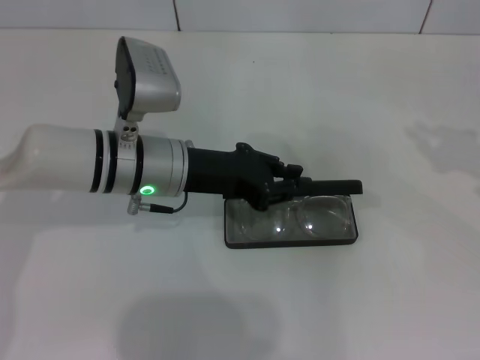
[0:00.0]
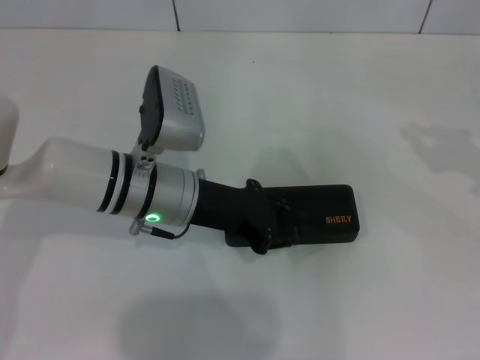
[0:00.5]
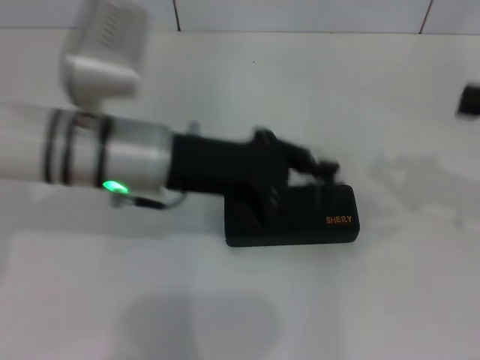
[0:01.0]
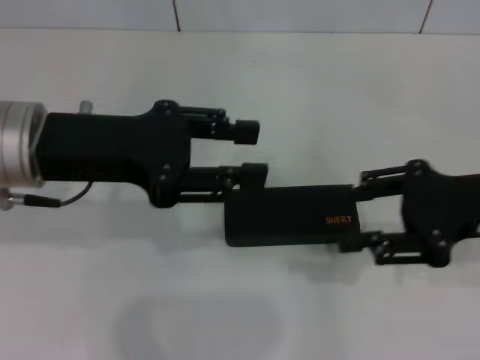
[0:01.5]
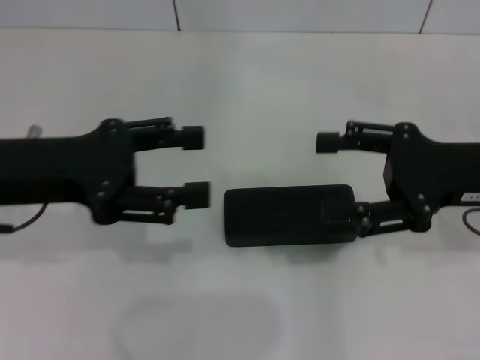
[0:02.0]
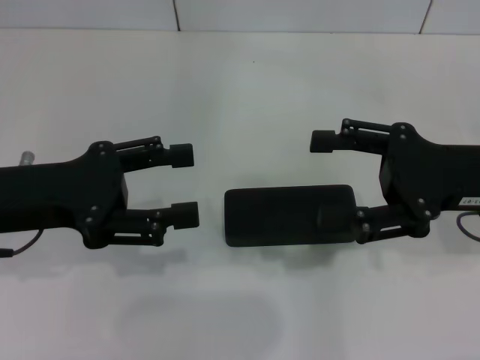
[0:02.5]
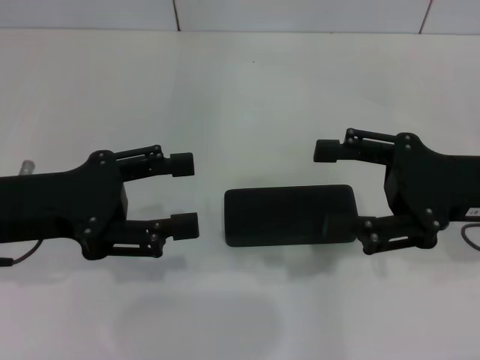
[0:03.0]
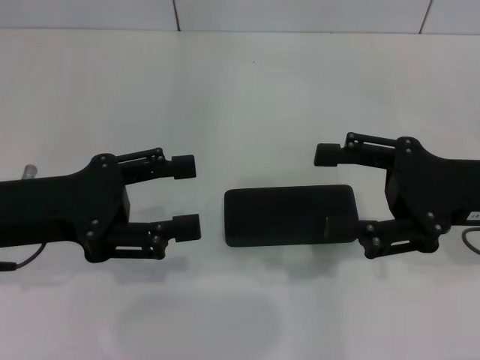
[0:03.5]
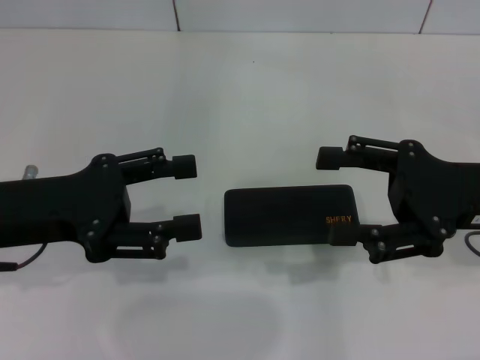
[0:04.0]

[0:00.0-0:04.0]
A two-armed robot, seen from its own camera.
0:00.0 to 0:02.0: The right gripper goes approximately 15 cm to the left, and opens up. The left gripper heads to the left, upward and backward, covering approximately 15 cm, and opens up.
0:02.0 to 0:04.0: The grippers move only a little.

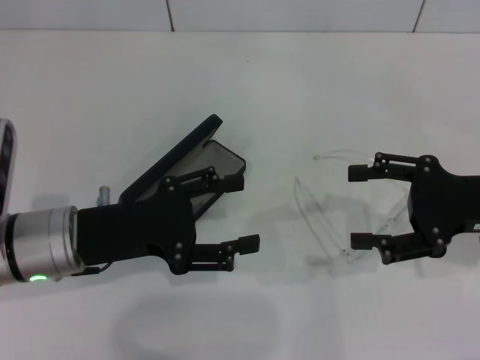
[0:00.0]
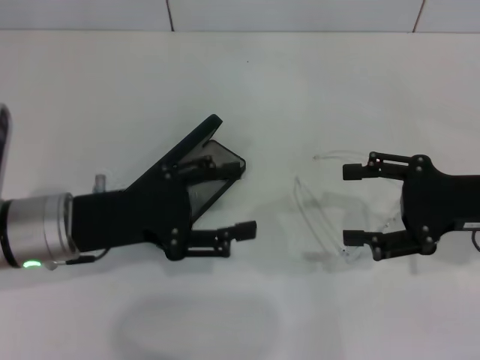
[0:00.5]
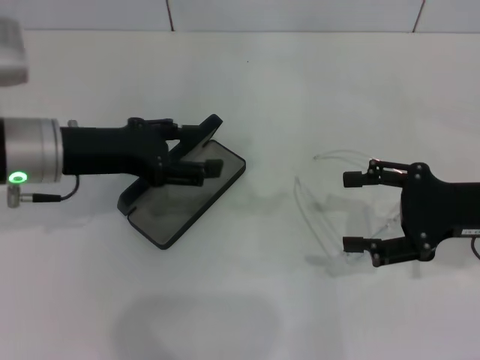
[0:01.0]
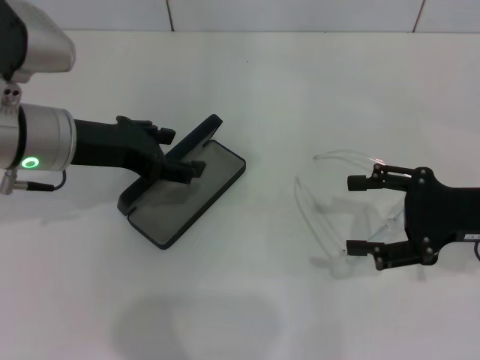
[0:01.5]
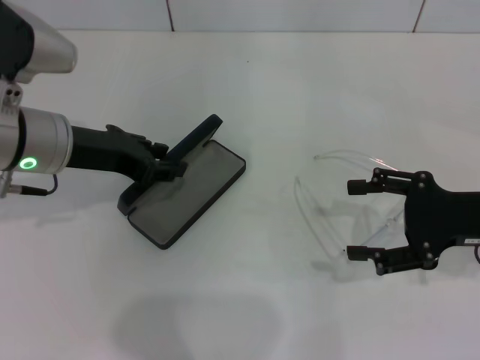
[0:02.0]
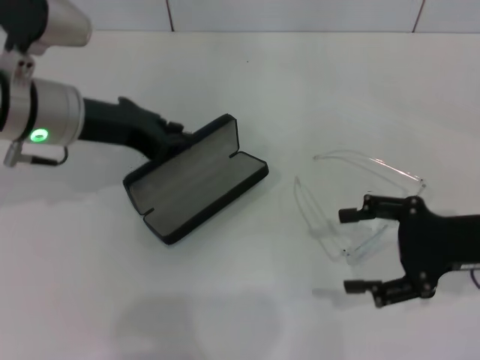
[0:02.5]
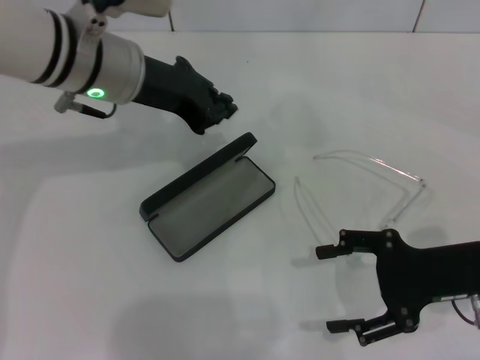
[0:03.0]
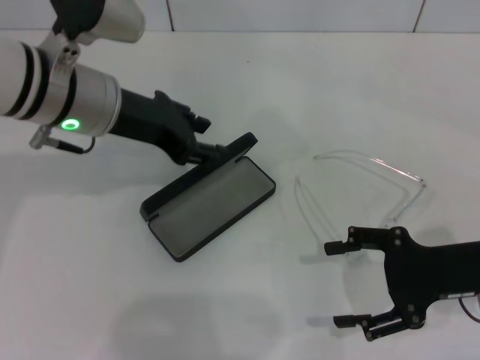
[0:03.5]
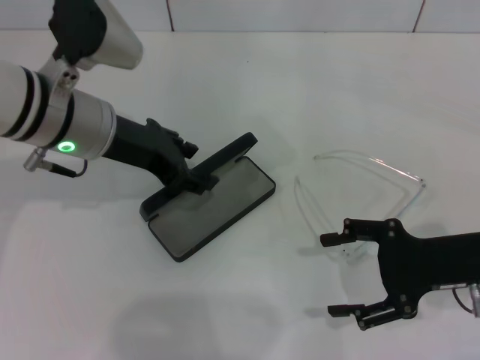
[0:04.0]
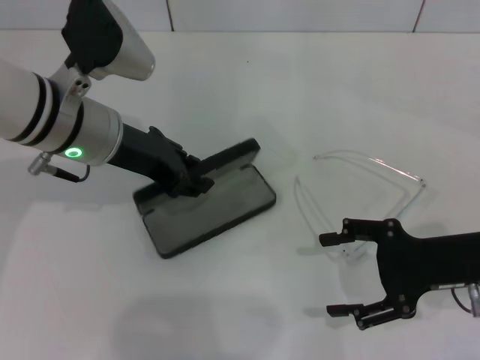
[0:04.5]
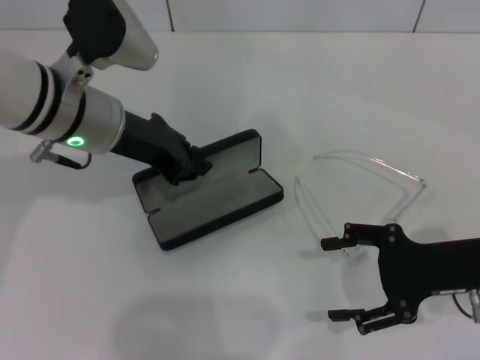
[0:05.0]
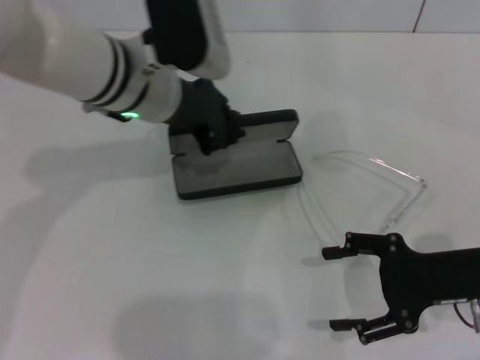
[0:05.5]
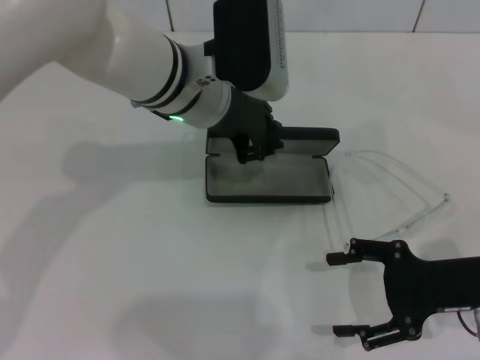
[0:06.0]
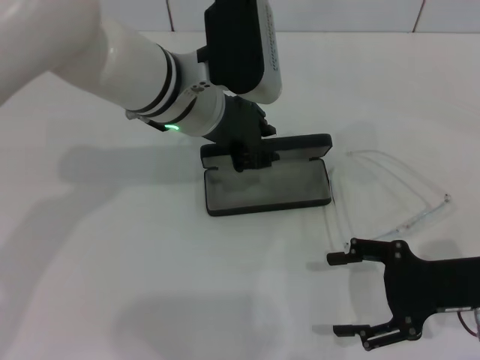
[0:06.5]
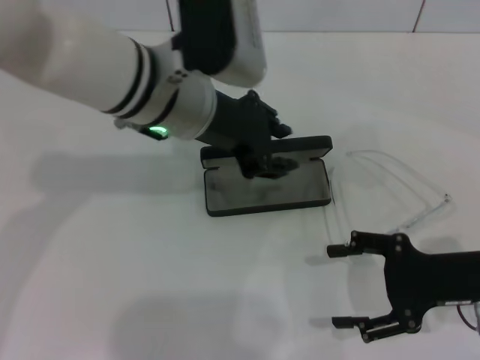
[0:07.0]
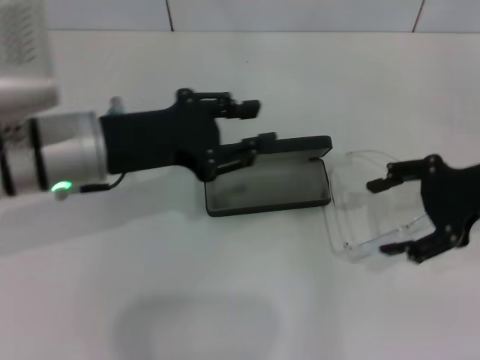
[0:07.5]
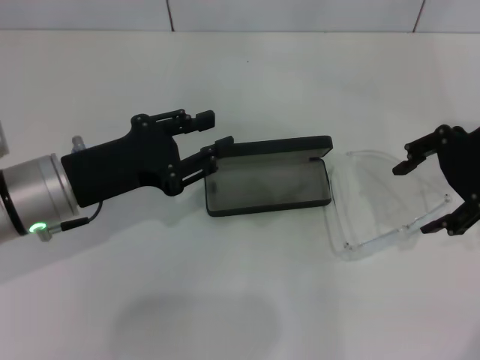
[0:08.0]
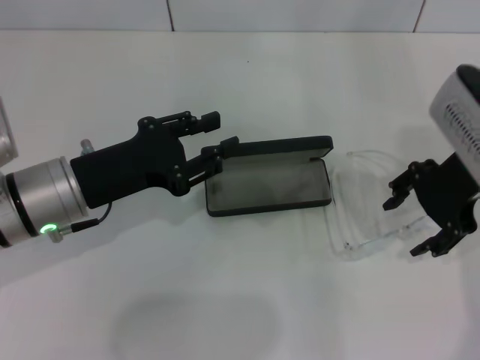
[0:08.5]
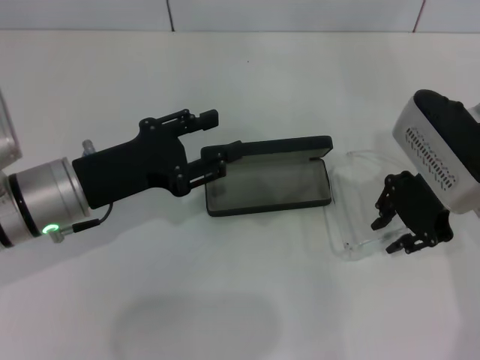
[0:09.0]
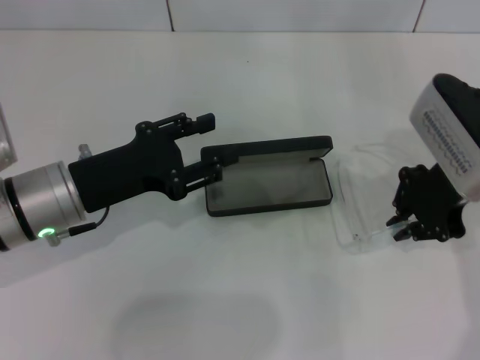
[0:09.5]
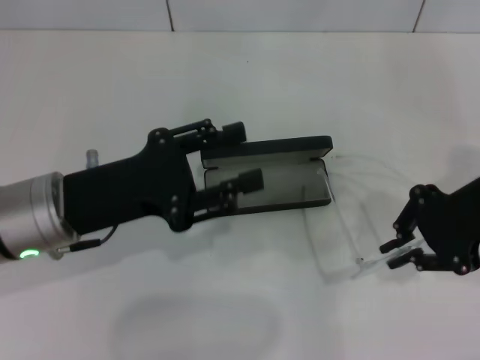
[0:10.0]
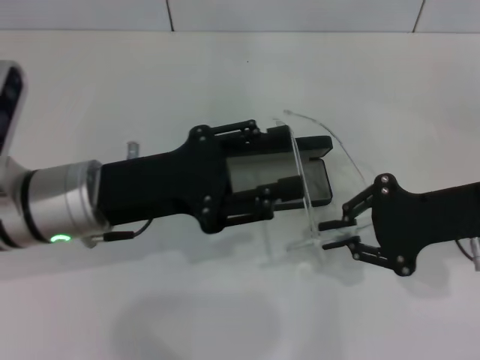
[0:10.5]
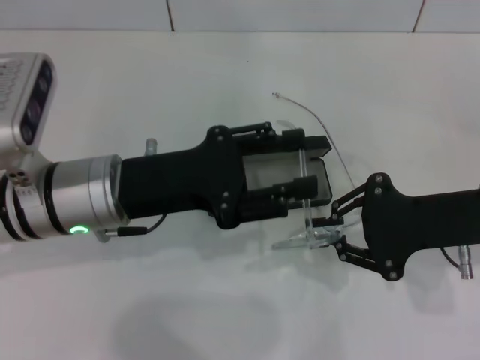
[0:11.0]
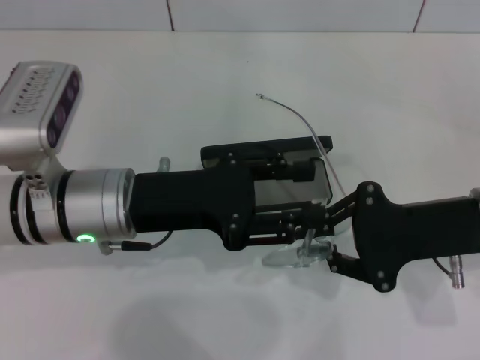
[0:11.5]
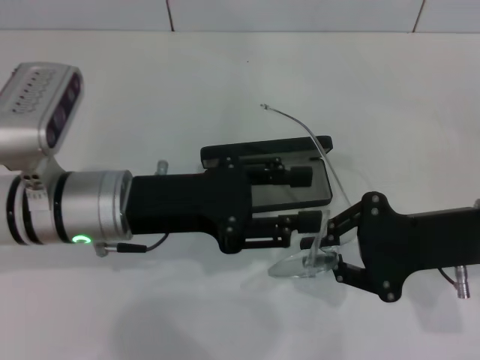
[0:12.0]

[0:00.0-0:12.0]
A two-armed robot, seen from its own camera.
Step, 0:00.0 to 0:04.5: Grab the glasses case with your left hand.
Step, 0:05.0 to 0:06.5: Place the glasses case in the center of the table with your left hand.
Step, 0:07.0 to 0:09.0: Grab the eyeglass frame with your right hand.
0:00.0 to 0:02.0: The left gripper shifts approximately 10 cm forward and upward.
0:02.0 to 0:04.0: The left gripper closes, then reopens.
0:04.0 to 0:06.0: The left gripper heads to the right, covering roughly 10 cm, and closes its fingers.
0:06.0 to 0:08.0: The left gripper is displaced to the left, backward and downward by about 20 cm. Meanwhile the right gripper heads upward and forward, covering about 20 cm.
0:08.0 to 0:10.0: The right gripper closes.
0:10.0 to 0:12.0: The right gripper shifts about 5 cm downward.

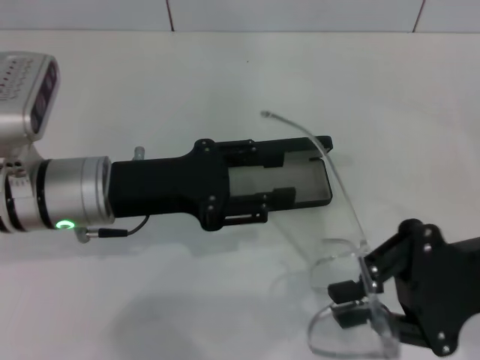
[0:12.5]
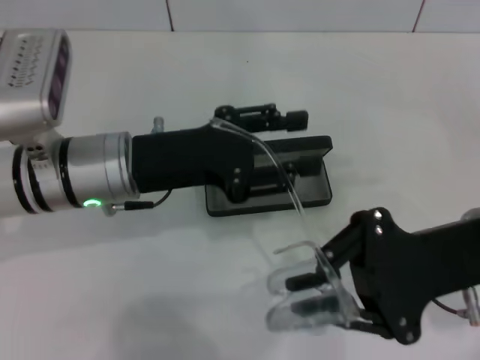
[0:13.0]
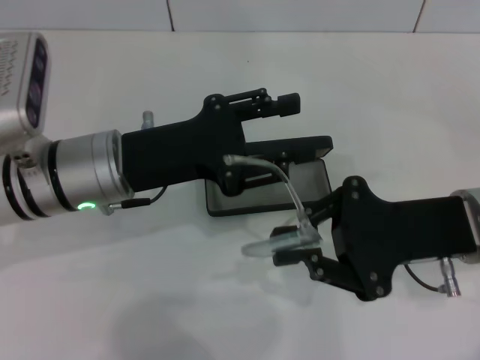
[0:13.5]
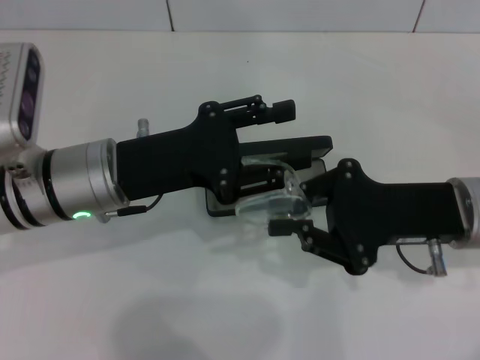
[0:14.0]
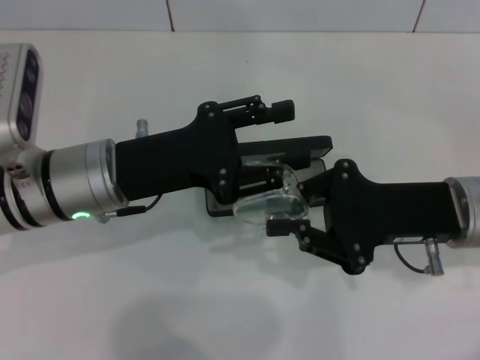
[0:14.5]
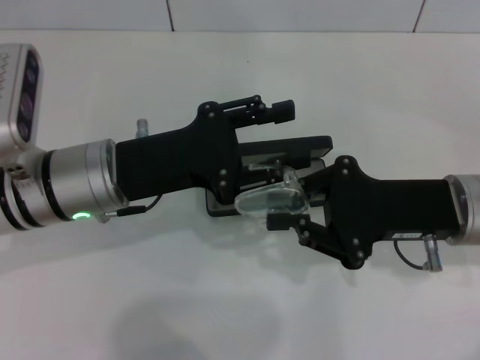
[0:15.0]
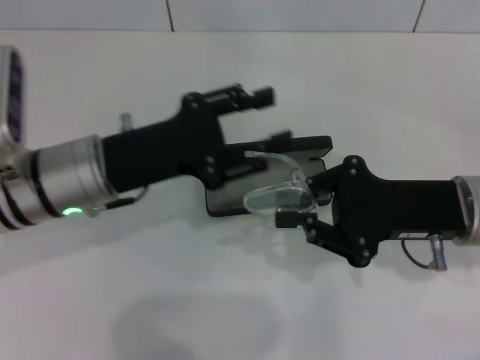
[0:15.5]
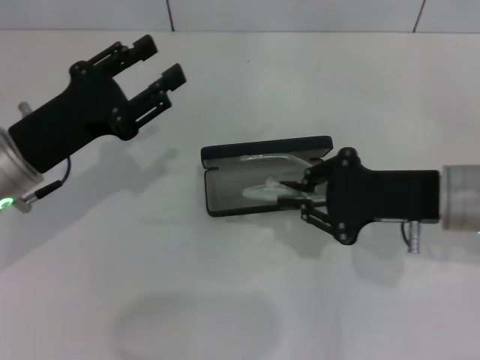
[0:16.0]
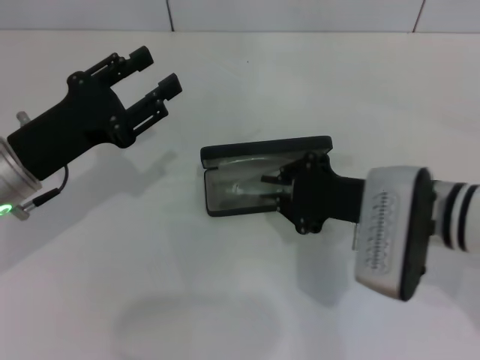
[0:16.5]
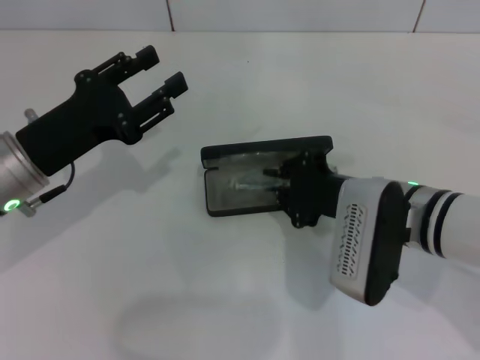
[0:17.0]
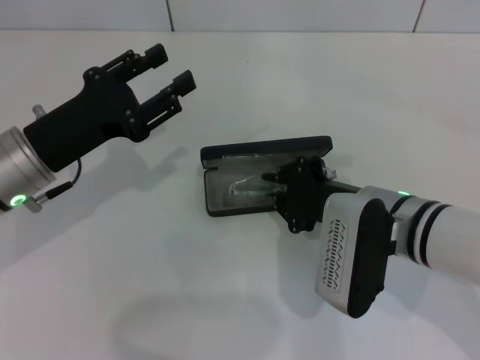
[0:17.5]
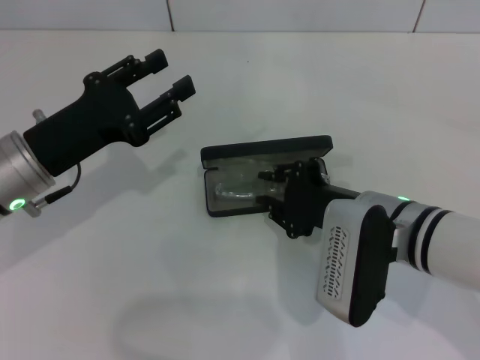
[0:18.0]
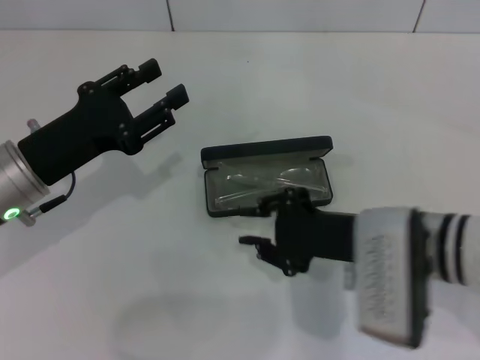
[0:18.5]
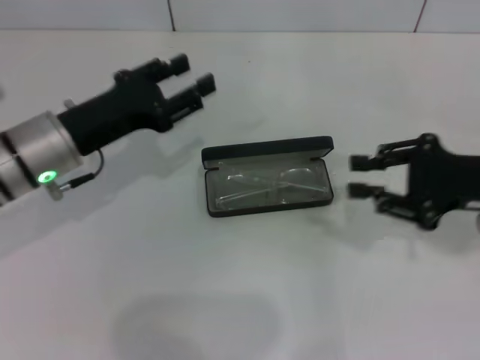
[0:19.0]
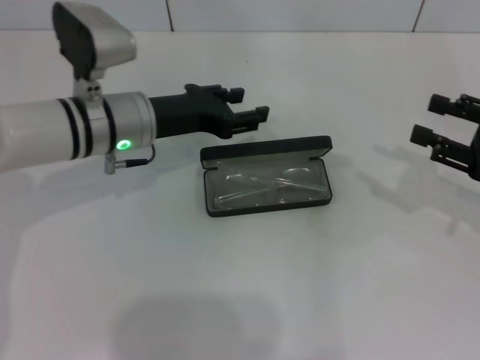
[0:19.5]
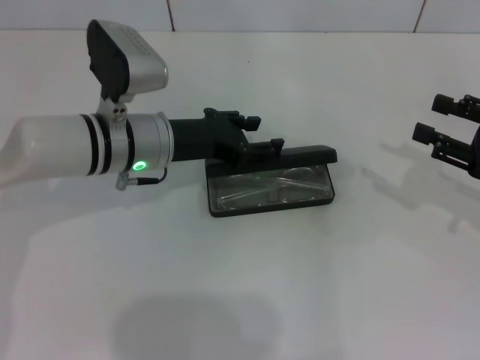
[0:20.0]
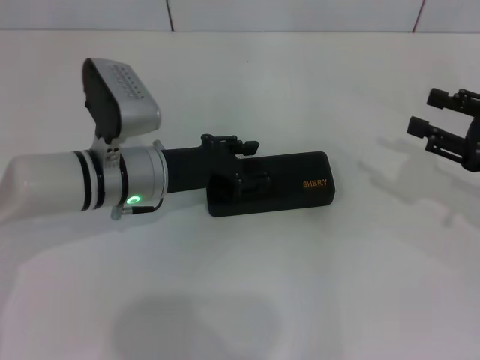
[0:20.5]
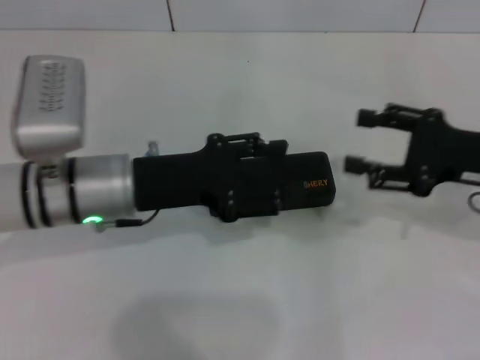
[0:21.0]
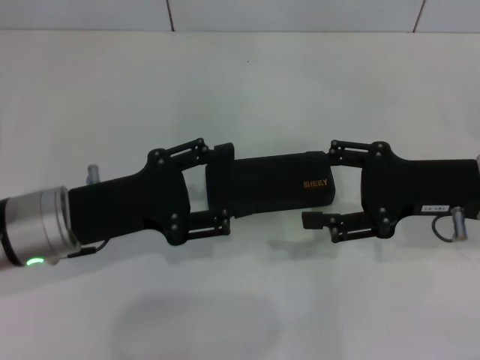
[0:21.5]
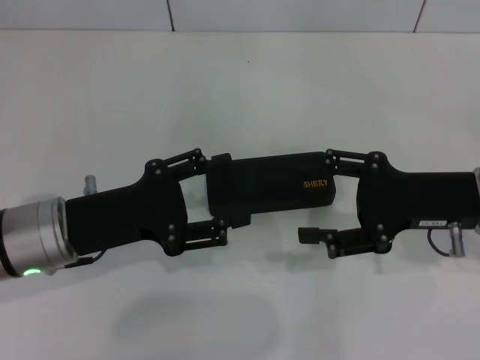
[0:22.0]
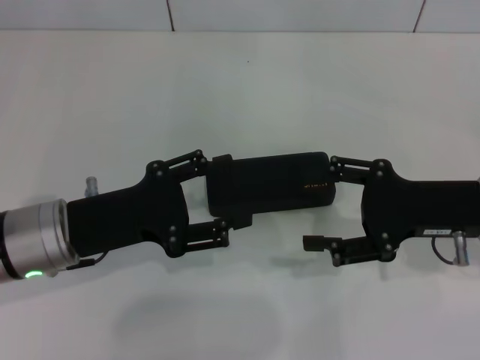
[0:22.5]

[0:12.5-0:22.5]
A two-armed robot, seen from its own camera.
Step, 0:12.5 to 0:15.0: Fold the frame with your left hand.
Step, 0:15.5 to 0:18.0: Put the glasses into the case with your right hand.
Step, 0:18.5 to 0:20.0: Close the glasses case with your left hand.
0:12.5 to 0:14.5: The right gripper shifts by some 5 cm.
0:14.5 to 0:16.5: The right gripper shifts by about 5 cm. Meanwhile the left gripper goes about 10 cm to the left.
0:16.5 to 0:18.5: The grippers move only a little.
0:18.5 to 0:20.5: The left gripper moves to the right and forward, roughly 10 cm; the right gripper is displaced to the right by about 20 cm, and opens its fingers.
0:20.5 to 0:22.5: The left gripper travels backward and to the left by approximately 10 cm. The right gripper moves to the left, approximately 10 cm.
